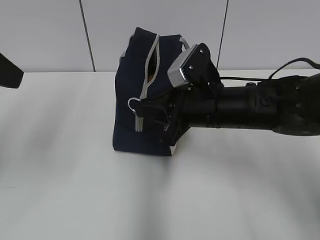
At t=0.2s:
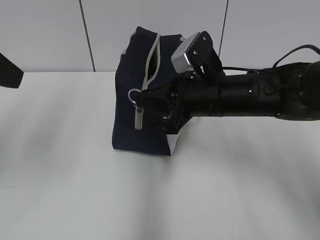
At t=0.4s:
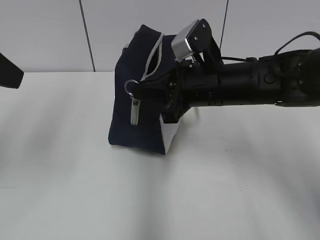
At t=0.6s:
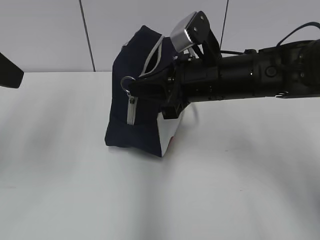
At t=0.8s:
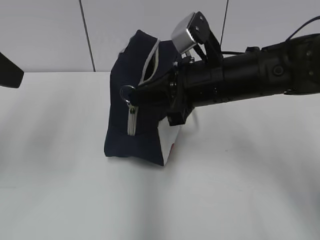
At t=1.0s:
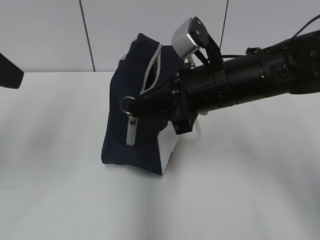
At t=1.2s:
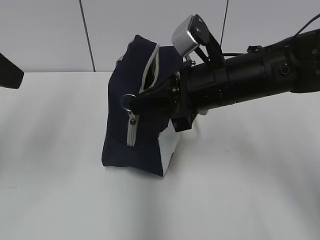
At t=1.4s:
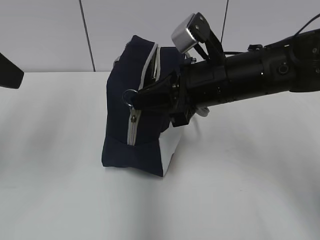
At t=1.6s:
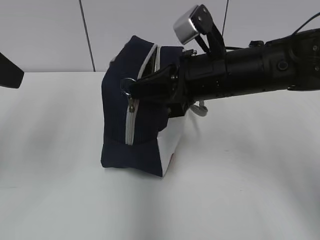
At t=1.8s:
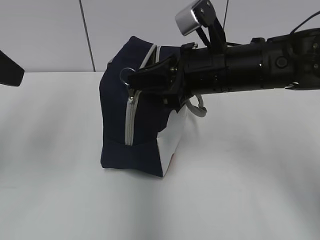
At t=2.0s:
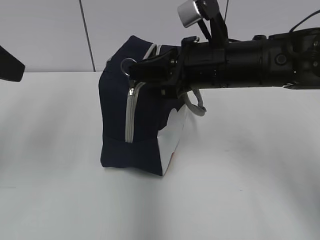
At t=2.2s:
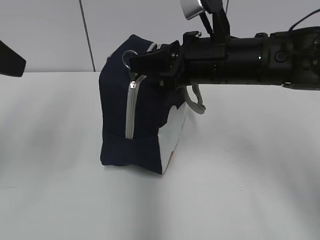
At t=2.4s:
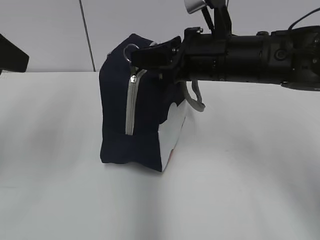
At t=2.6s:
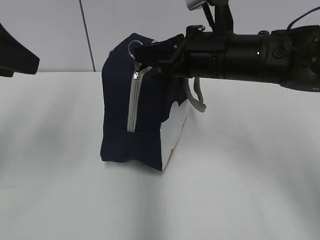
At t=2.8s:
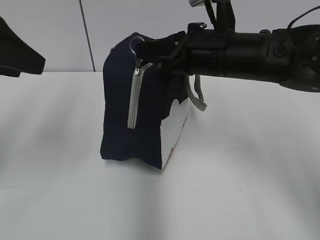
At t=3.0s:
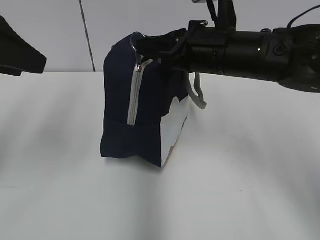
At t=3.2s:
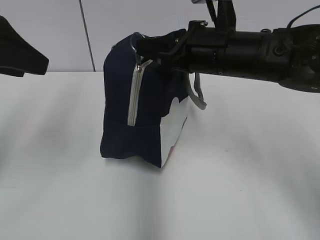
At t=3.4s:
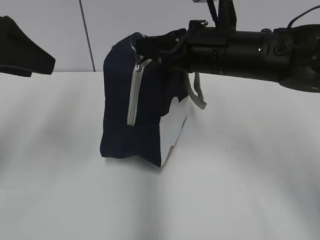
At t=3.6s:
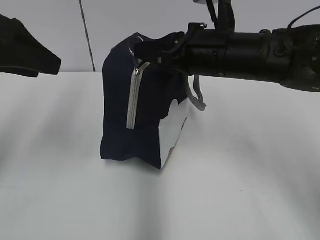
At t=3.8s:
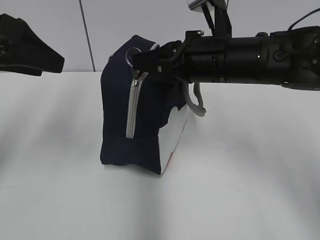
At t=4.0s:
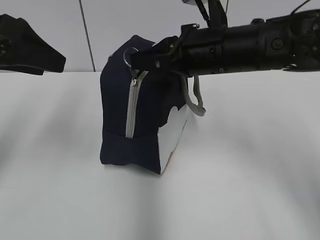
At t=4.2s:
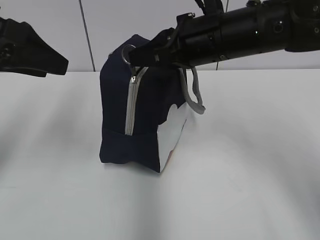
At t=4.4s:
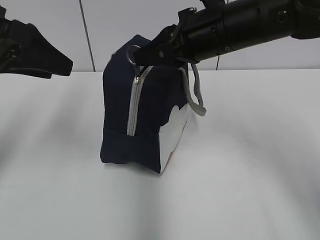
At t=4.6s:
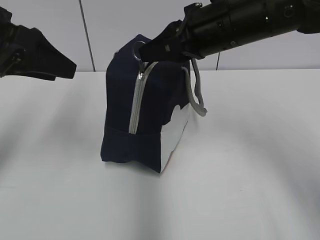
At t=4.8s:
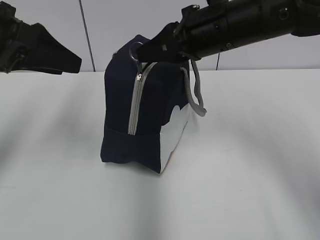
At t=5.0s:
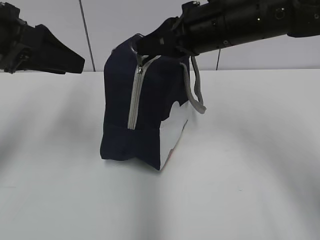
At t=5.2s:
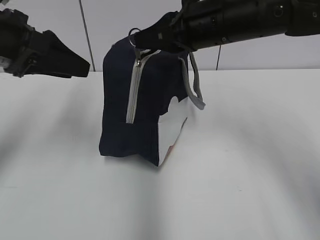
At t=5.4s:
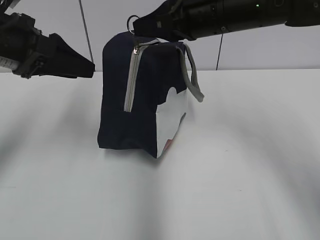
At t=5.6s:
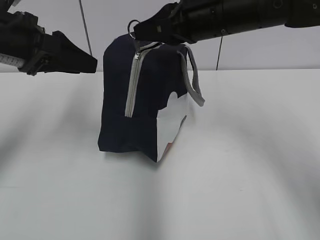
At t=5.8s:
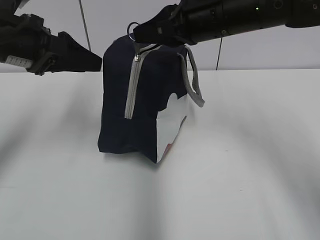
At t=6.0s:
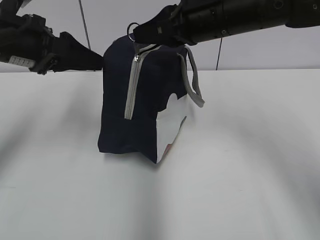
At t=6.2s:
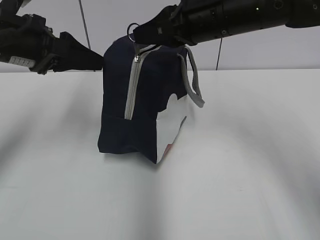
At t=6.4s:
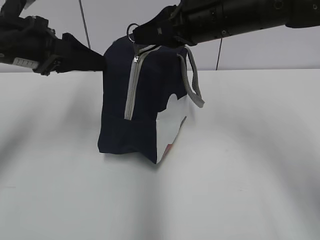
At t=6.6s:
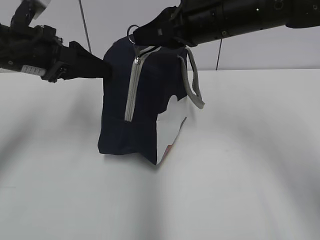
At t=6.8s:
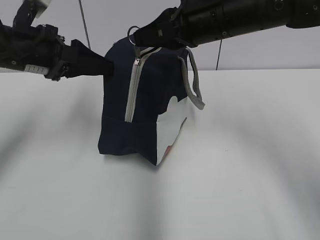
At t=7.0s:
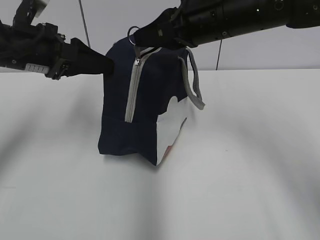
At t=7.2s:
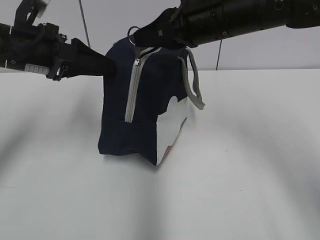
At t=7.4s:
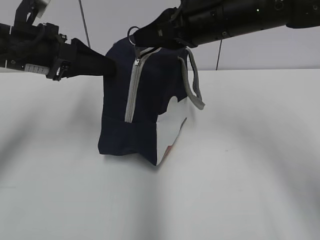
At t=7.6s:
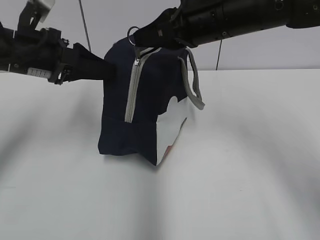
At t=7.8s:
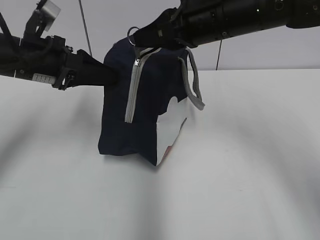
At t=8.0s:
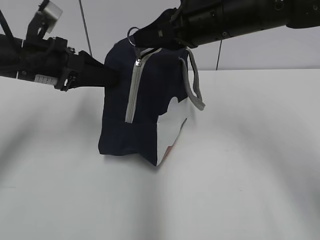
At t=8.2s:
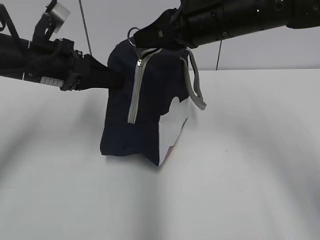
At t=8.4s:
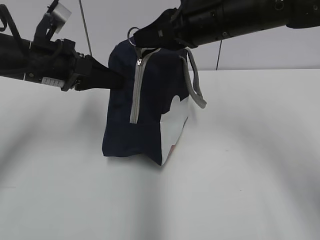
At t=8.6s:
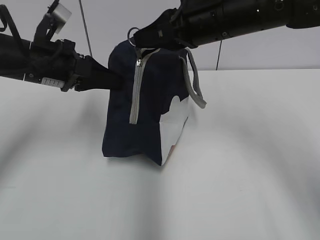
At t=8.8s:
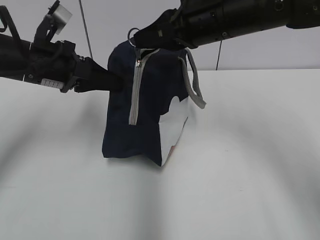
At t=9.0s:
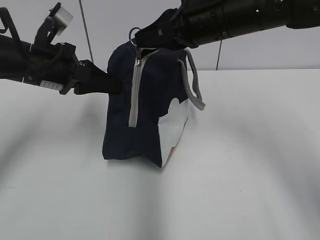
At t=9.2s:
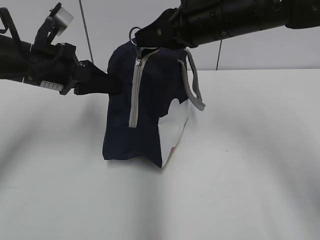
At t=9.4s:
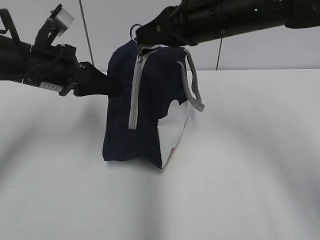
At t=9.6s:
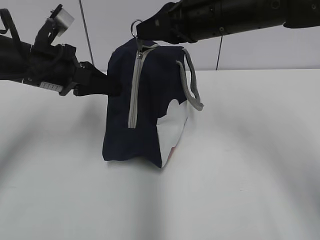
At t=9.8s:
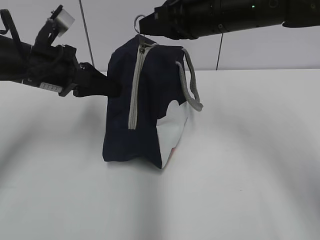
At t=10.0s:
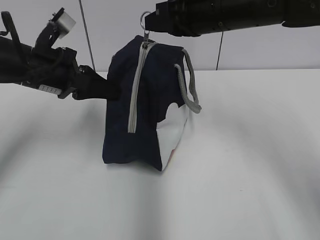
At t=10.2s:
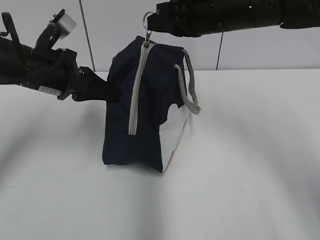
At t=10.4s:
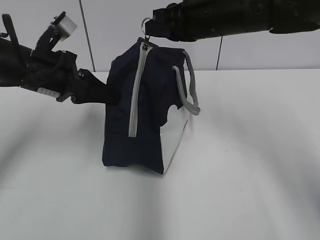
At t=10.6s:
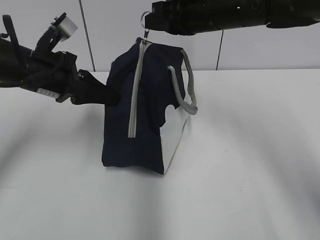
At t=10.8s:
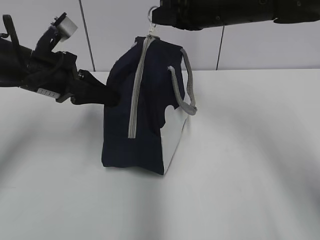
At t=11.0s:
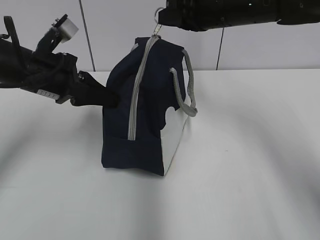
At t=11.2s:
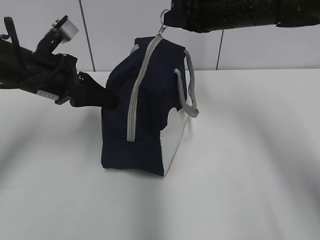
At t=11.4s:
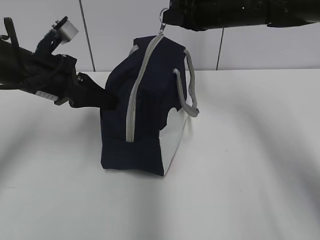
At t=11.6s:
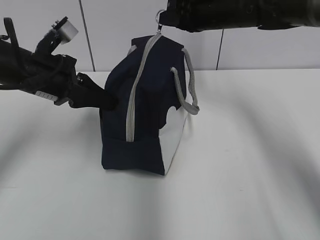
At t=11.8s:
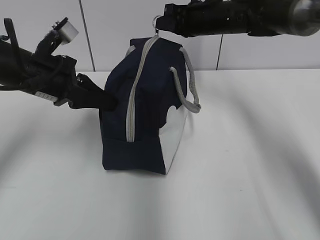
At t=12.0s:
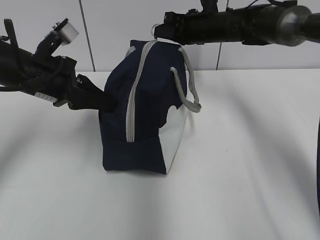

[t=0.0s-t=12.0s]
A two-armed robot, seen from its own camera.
Step, t=0.0s to t=8.2s: Grab the lunch bag with your left hand.
t=0.0s to t=1.6s: The right gripper heads upward, covering approximately 5 cm.
t=3.0s to t=4.4s: The grippers make only small movements.
t=4.4s to t=6.0s: The left gripper goes approximately 5 cm forward.
t=6.0s to t=7.6s: The grippers move only a little.
t=7.6s to t=9.0s: The left gripper closes.
t=9.0s to t=10.4s: The grippers move only a little.
t=10.4s to t=12.0s: The right gripper shifts roughly 15 cm forward and downward.

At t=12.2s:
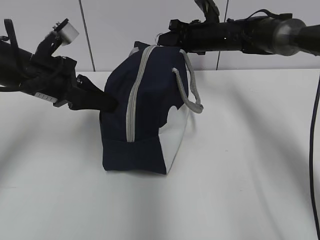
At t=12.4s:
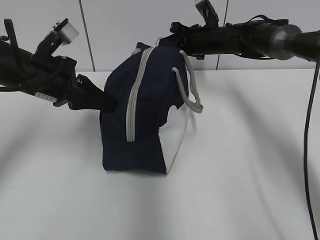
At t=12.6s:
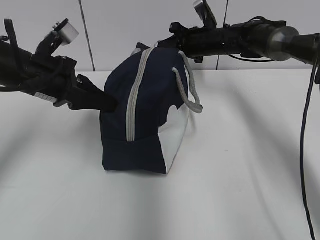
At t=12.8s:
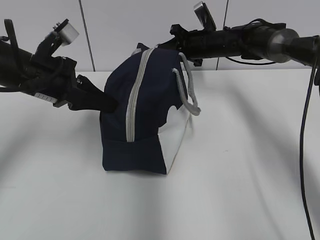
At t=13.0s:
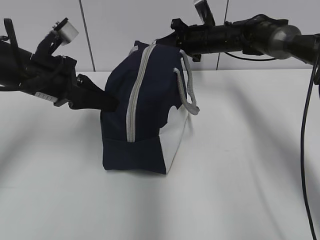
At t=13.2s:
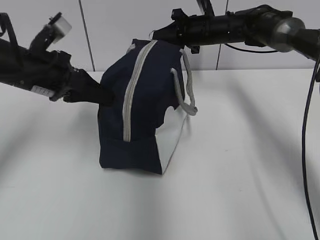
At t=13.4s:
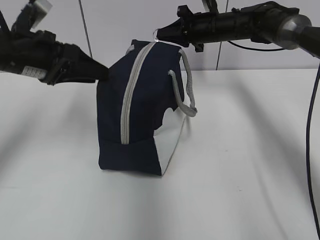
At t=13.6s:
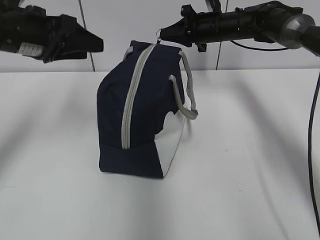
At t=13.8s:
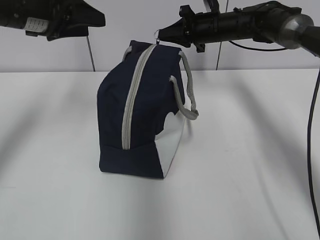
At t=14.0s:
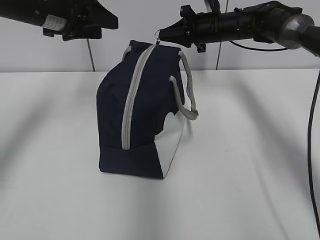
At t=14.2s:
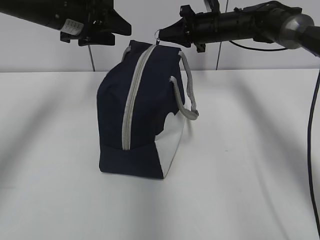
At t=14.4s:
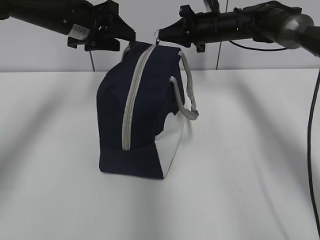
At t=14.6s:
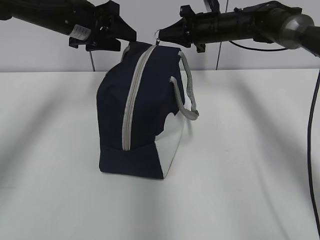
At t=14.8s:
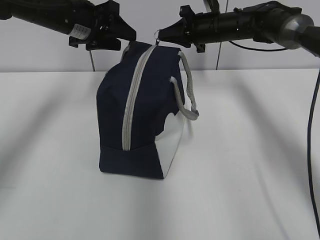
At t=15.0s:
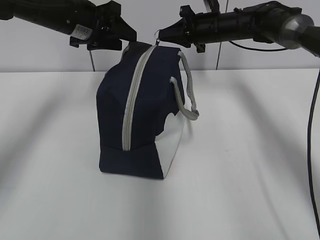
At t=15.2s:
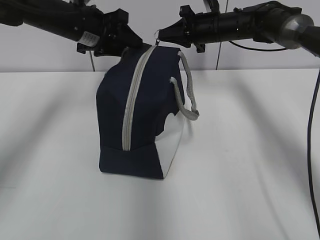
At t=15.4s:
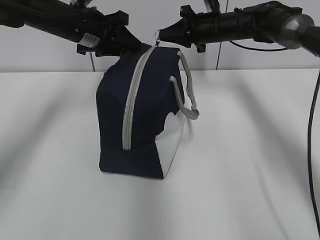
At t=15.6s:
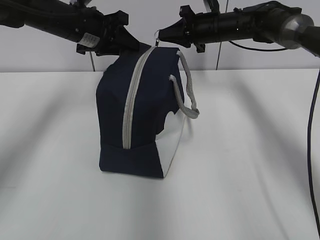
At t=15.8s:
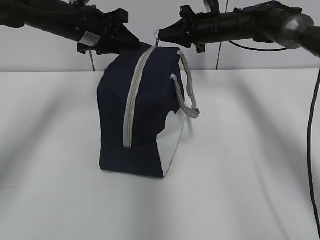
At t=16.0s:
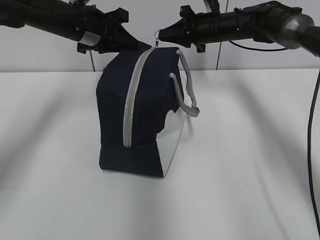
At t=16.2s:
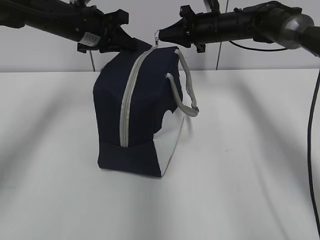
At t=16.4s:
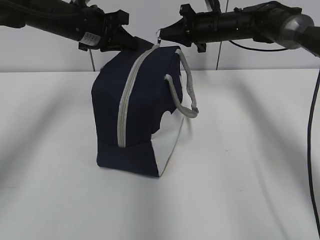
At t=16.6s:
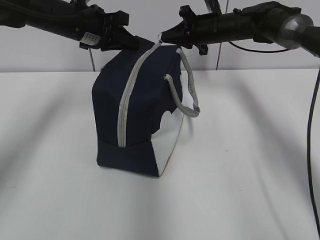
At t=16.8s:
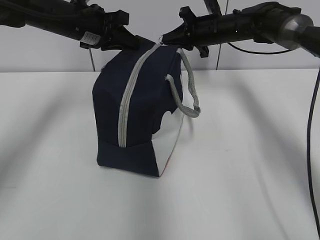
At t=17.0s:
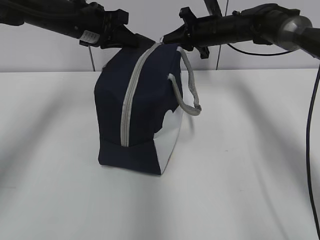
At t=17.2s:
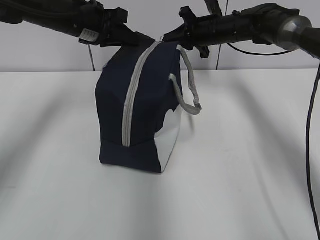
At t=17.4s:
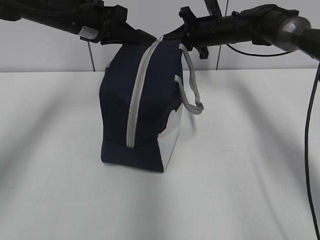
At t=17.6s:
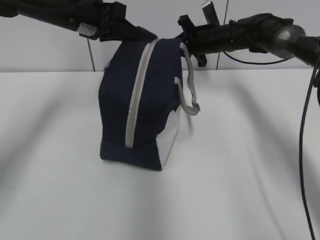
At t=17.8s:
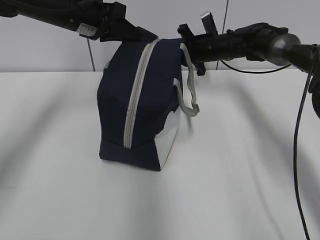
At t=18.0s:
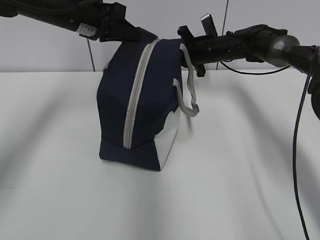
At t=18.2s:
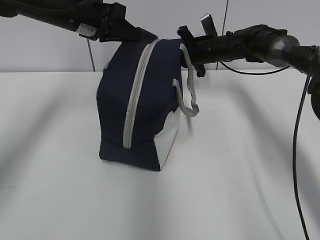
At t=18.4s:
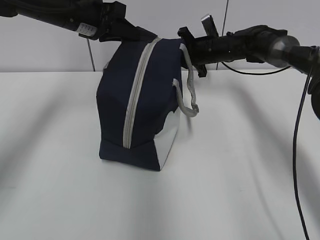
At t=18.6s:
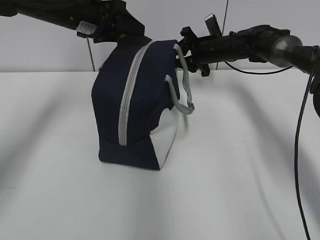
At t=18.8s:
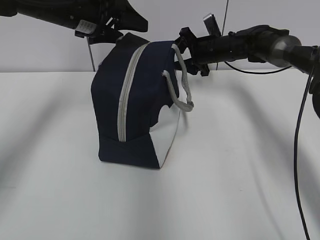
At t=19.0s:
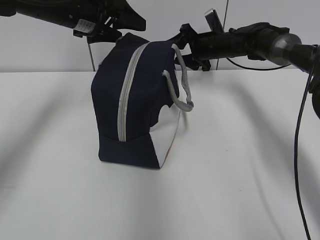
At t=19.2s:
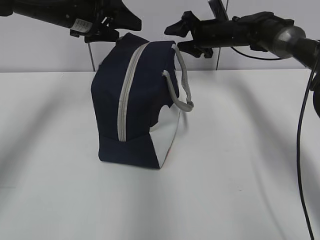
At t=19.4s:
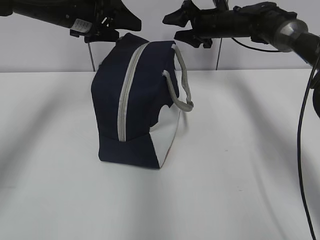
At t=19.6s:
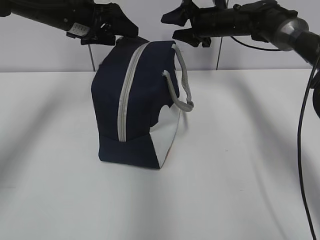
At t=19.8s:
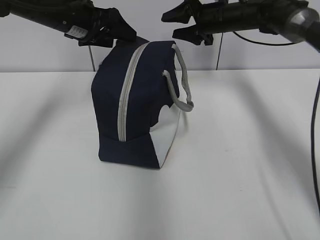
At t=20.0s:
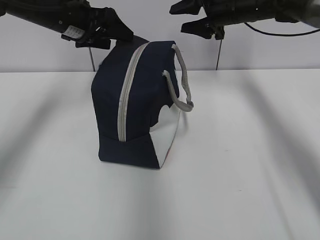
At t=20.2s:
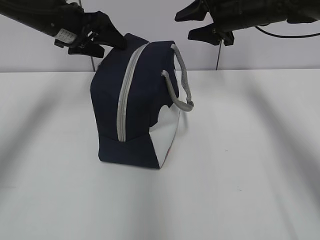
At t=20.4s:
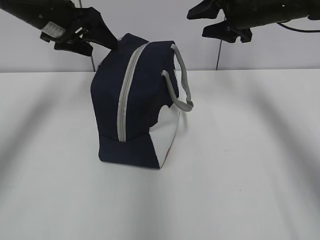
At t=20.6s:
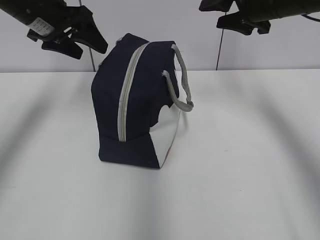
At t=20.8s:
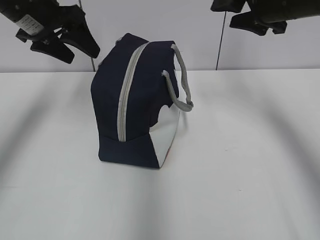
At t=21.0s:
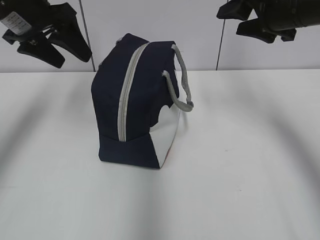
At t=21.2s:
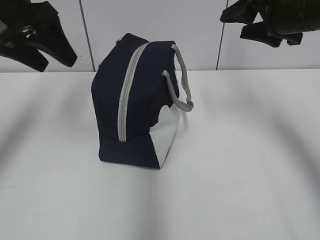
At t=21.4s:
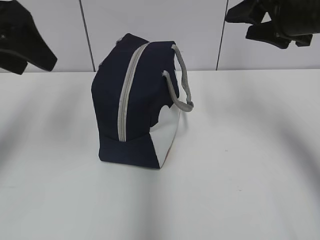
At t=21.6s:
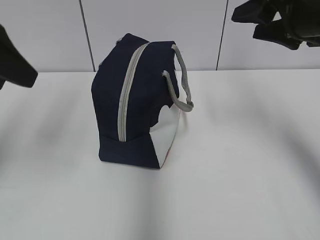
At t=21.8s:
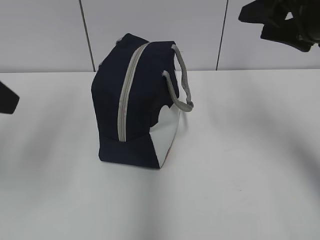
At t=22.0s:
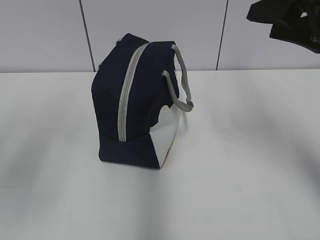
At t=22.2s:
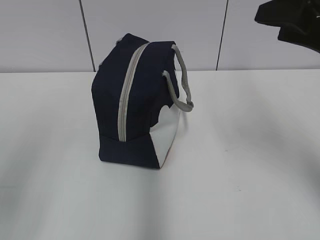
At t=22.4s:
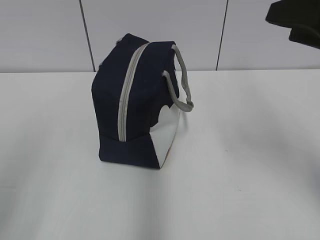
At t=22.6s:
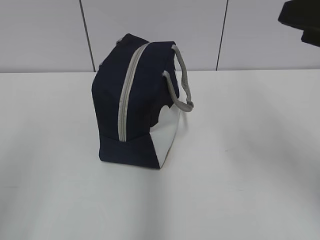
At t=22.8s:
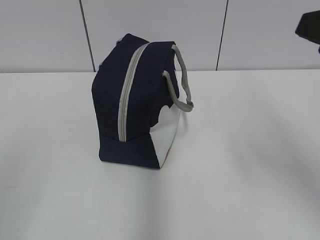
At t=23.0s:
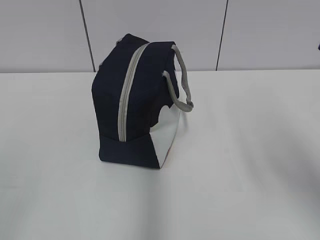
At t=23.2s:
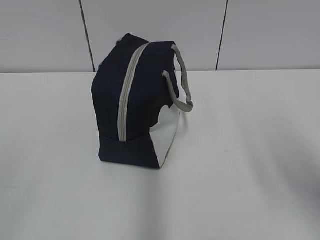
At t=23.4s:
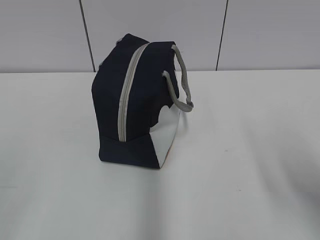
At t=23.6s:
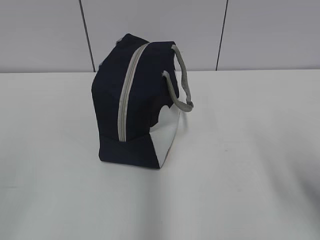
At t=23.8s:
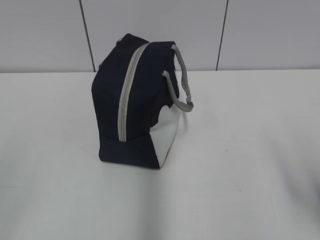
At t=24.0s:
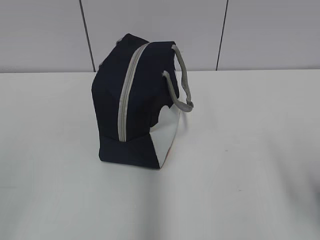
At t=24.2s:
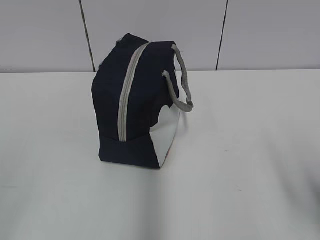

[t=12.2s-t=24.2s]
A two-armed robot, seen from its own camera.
Step, t=12.2s to t=18.4s: Pull the zipper with your right hand.
t=12.2s to t=13.8s: The left gripper travels upward by some 10 cm, and opens up.
t=13.8s to t=15.2s: The left gripper heads forward and to the right, covering roughly 10 cm.
t=15.2s to t=16.6s: The left gripper closes up.
t=16.6s to t=18.2s: The right gripper moves downward, approximately 5 cm.
t=18.2s to t=19.8s: The right gripper travels upward by about 5 cm, and opens up, while the left gripper opens its fingers.
t=19.8s to t=21.2s: The left gripper heads backward, upward and to the left, covering roughly 15 cm. Meanwhile the right gripper goes approximately 20 cm backward and upward.
t=21.2s to t=22.6s: The left gripper heads backward, covering roughly 30 cm, while the right gripper heads backward, covering approximately 15 cm.
t=22.6s to t=24.2s: The right gripper travels downward and backward by about 15 cm.
